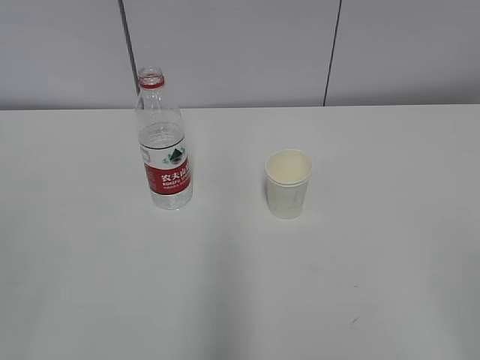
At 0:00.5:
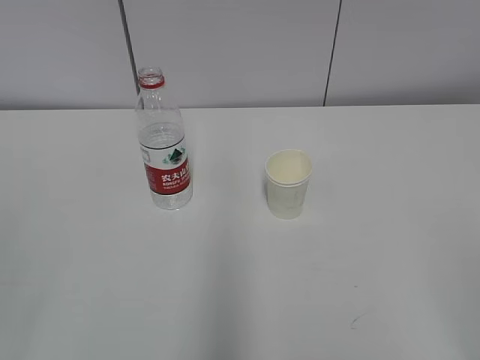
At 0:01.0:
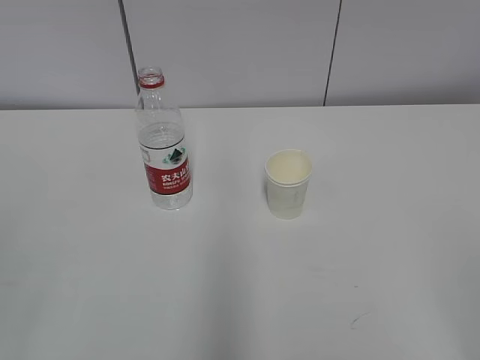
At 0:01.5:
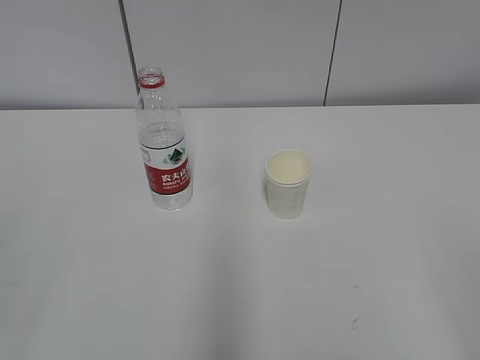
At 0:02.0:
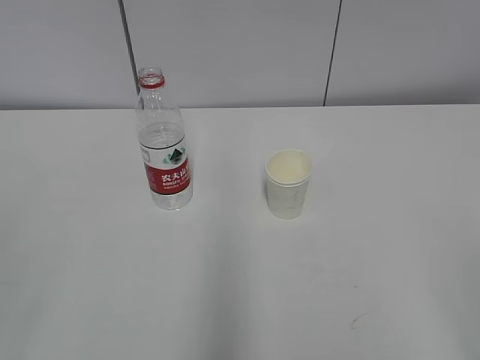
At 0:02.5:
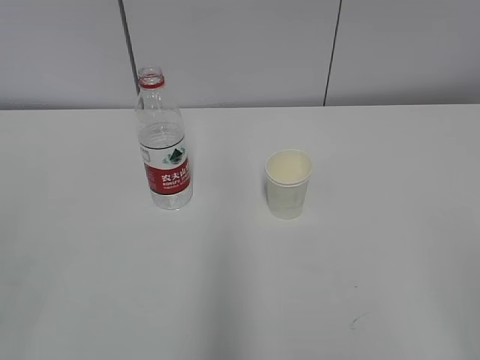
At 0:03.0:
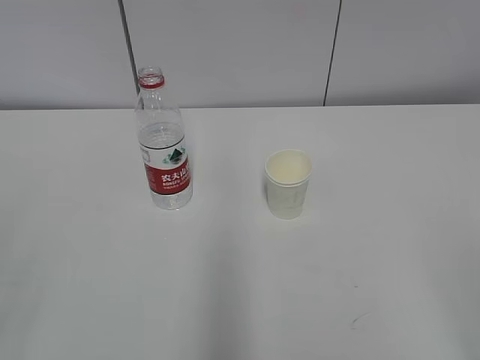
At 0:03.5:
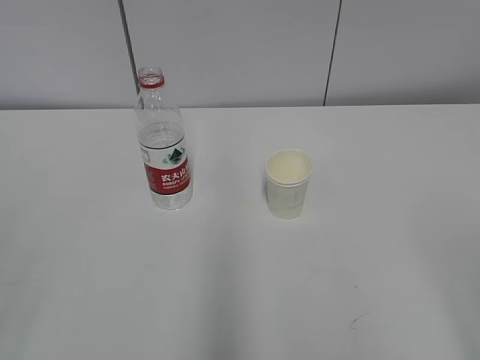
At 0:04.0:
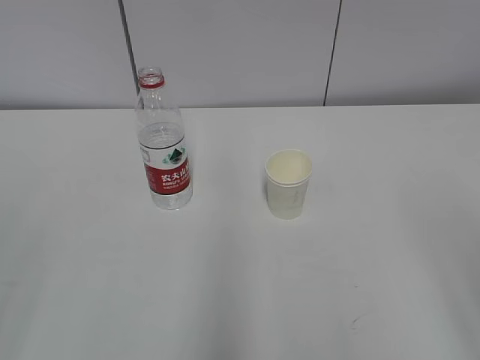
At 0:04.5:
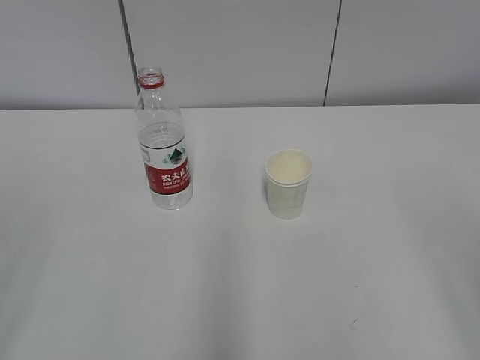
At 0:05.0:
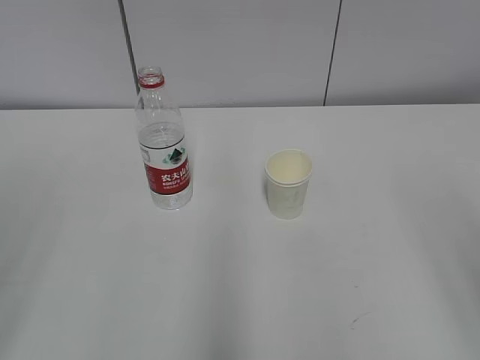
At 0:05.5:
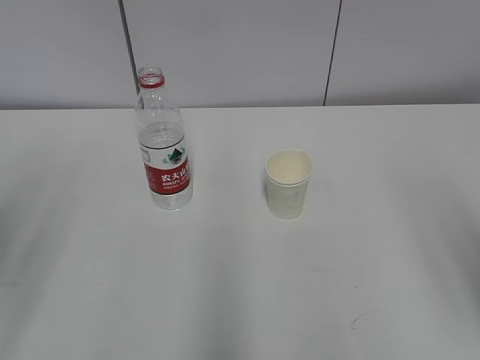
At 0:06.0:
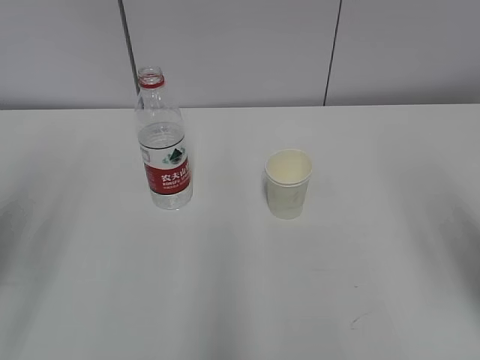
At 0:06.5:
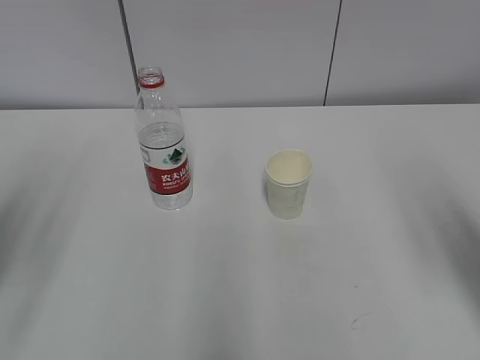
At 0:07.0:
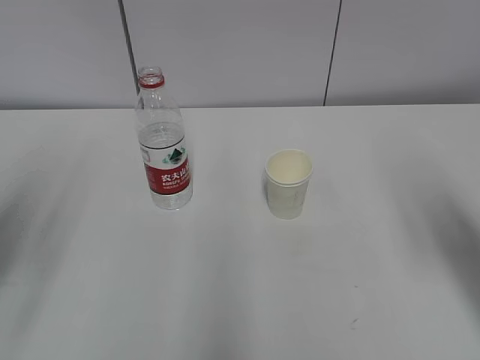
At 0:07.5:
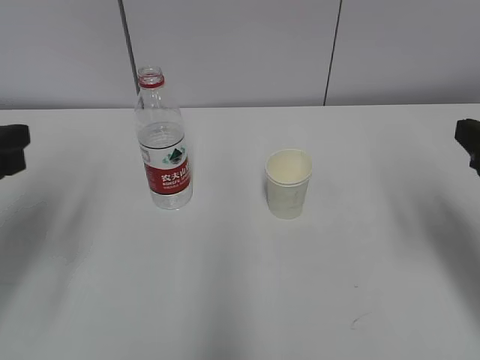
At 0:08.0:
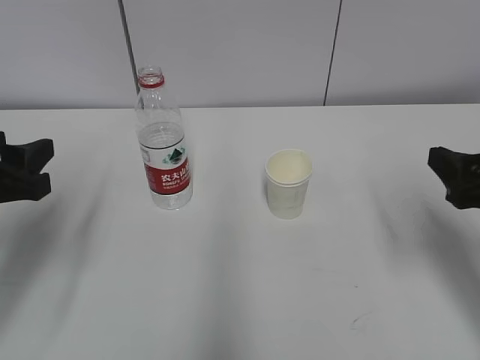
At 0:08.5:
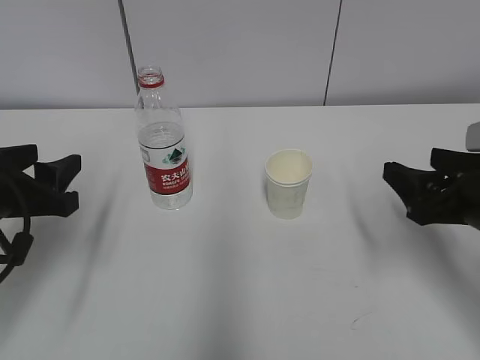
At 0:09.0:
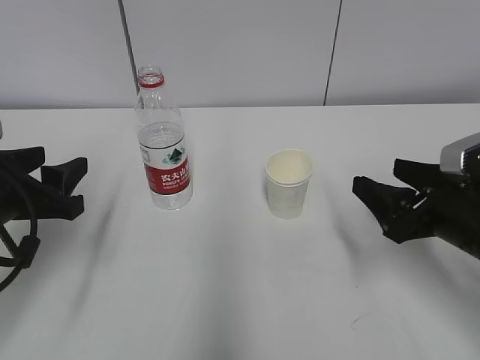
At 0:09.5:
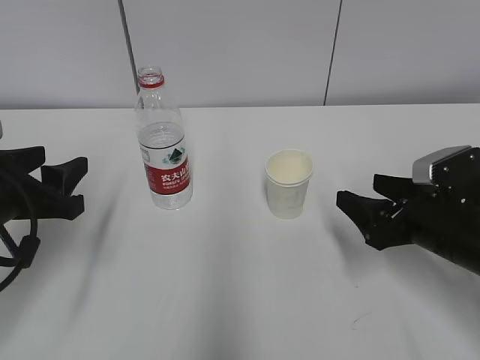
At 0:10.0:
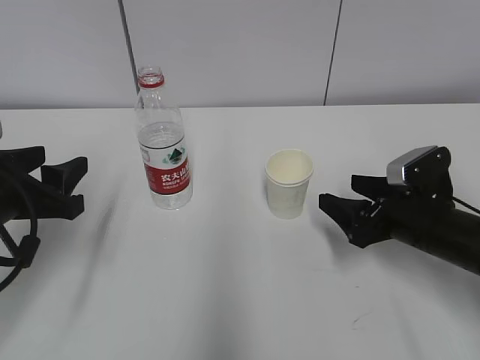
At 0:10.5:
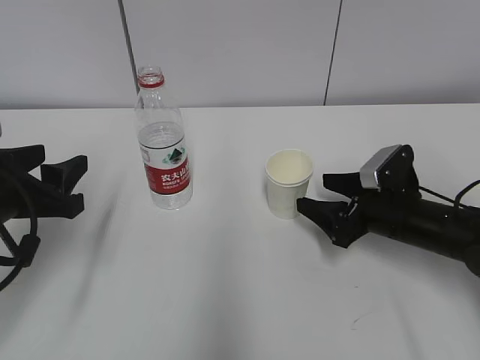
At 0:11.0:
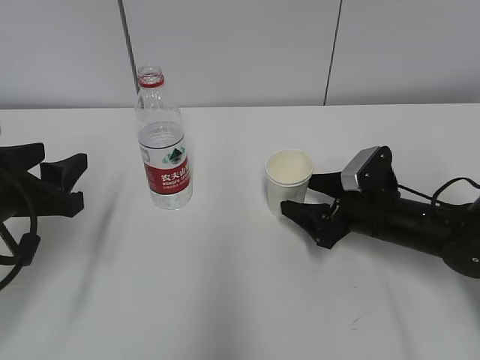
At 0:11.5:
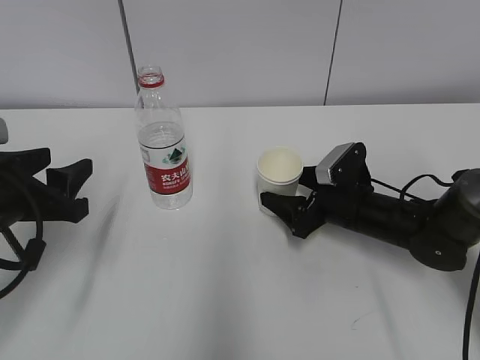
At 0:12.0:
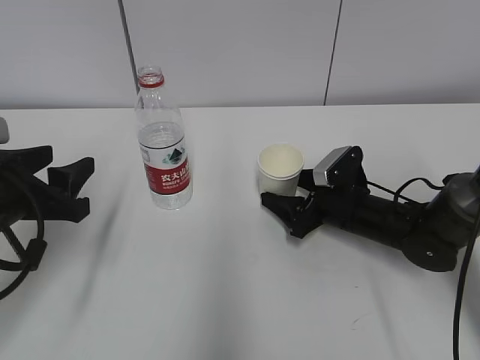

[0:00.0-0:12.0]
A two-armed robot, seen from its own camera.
Step, 0:00.0 to 0:10.0: Grab the paper cup with the right hand.
0:04.0 to 0:06.0: The left gripper travels forward by approximately 15 cm.
0:06.0 to 0:08.0: The two grippers go approximately 10 cm downward and forward.
0:08.0 to 0:10.0: The right gripper moves downward and forward, some 15 cm.
0:10.0 to 0:12.0: The right gripper goes approximately 10 cm forward and to the left.

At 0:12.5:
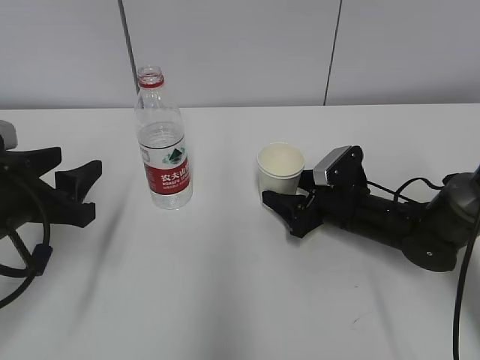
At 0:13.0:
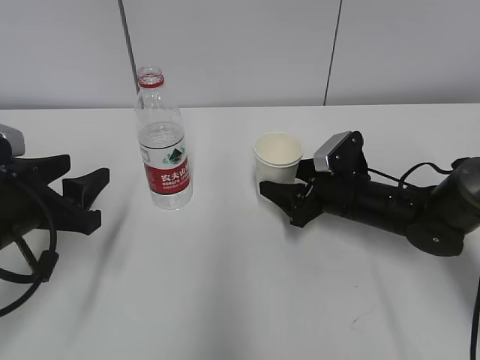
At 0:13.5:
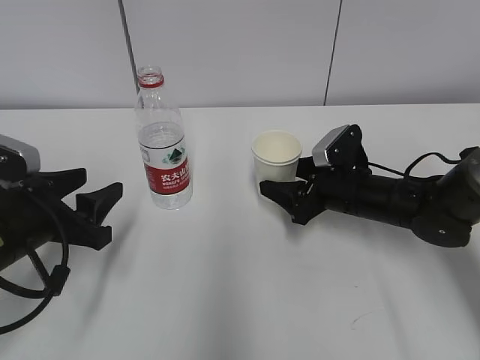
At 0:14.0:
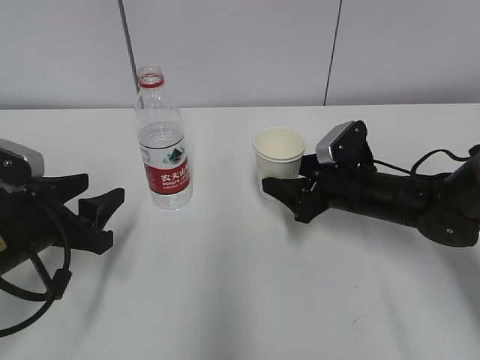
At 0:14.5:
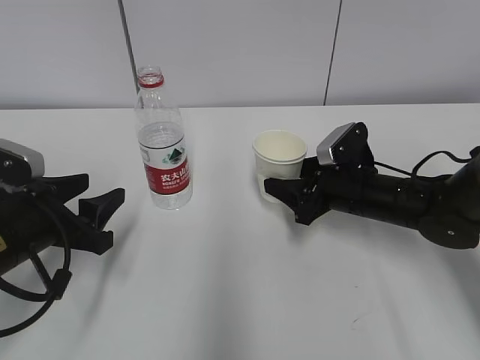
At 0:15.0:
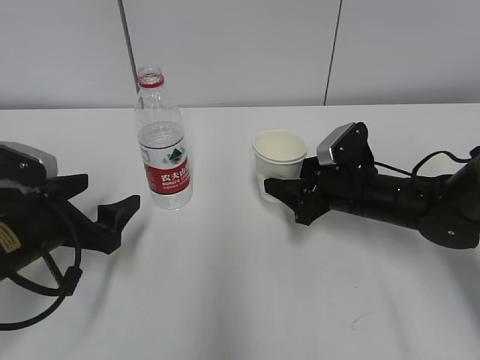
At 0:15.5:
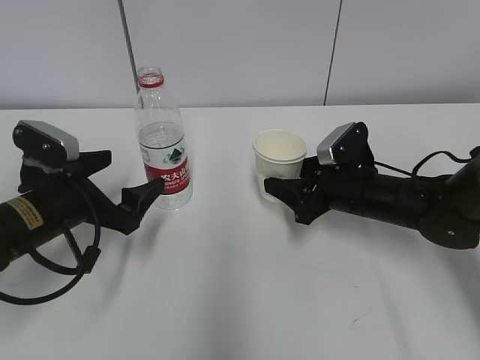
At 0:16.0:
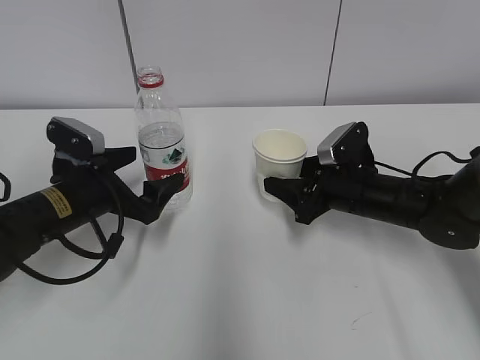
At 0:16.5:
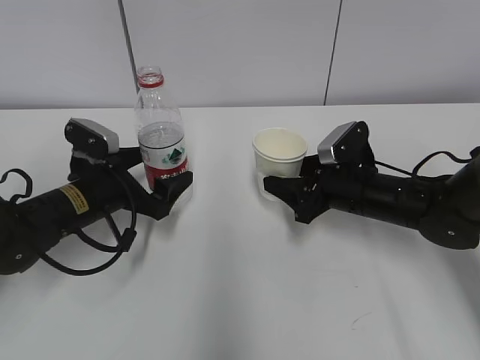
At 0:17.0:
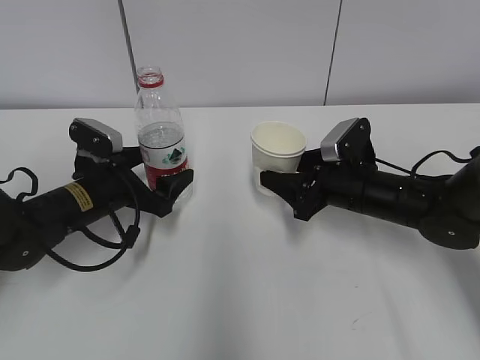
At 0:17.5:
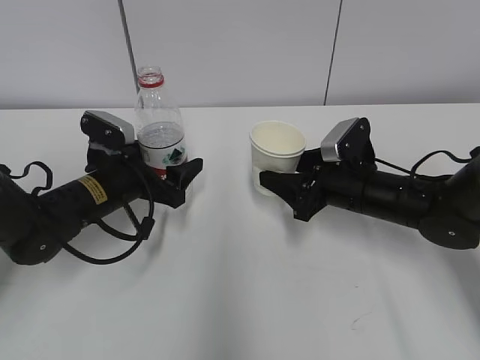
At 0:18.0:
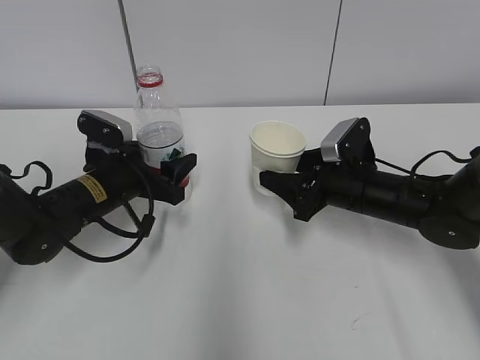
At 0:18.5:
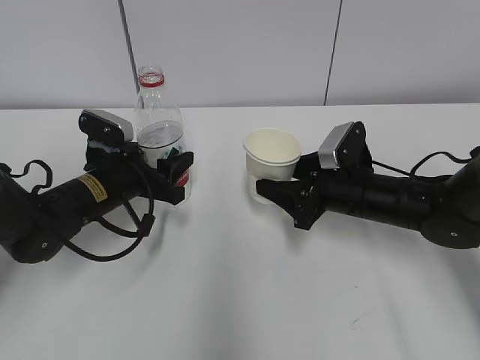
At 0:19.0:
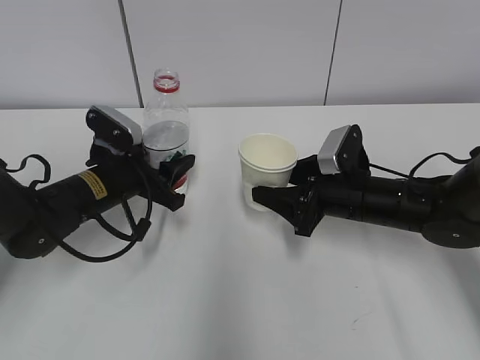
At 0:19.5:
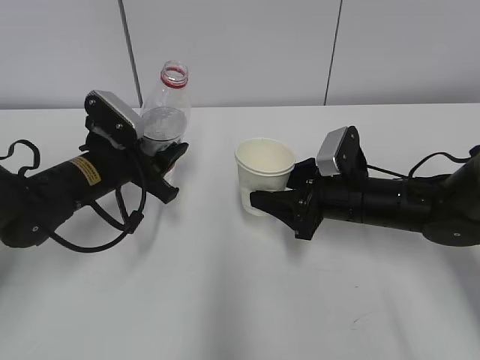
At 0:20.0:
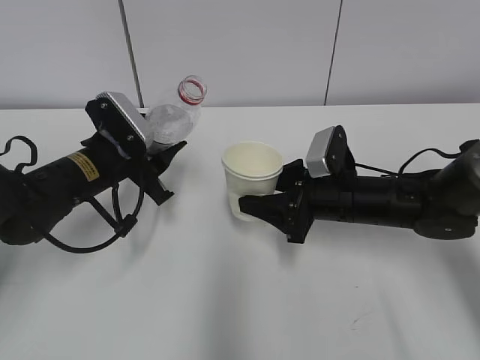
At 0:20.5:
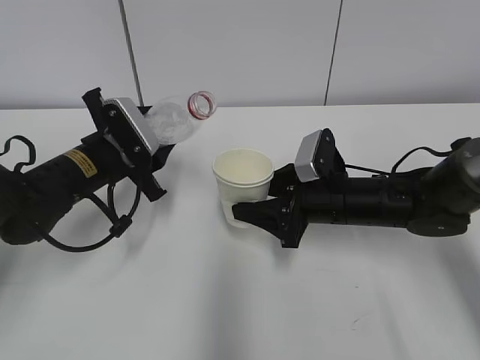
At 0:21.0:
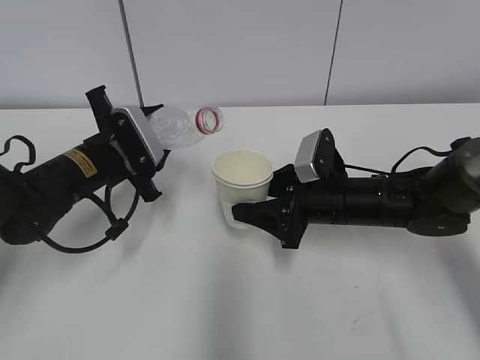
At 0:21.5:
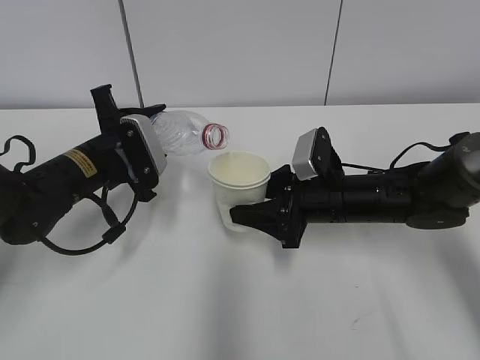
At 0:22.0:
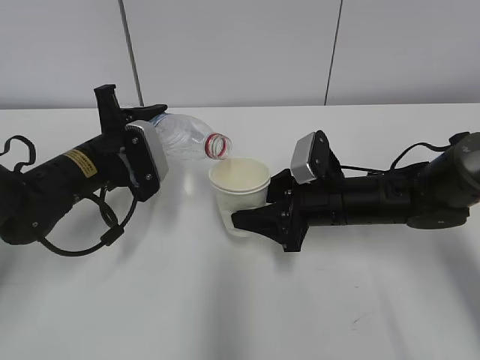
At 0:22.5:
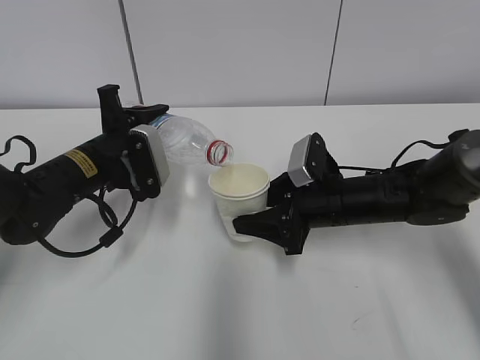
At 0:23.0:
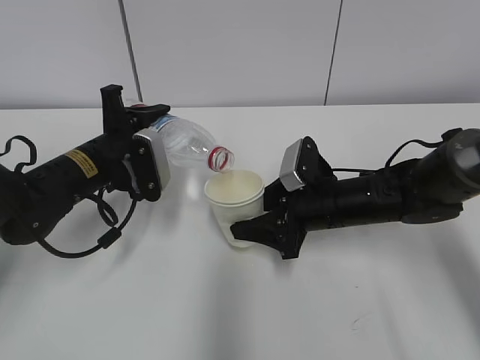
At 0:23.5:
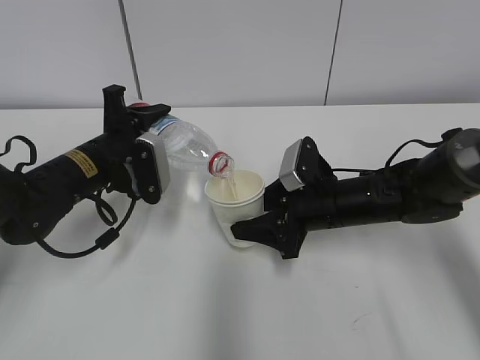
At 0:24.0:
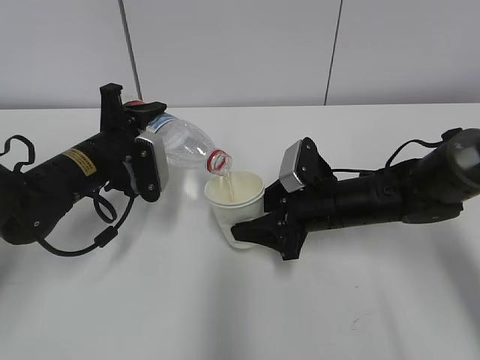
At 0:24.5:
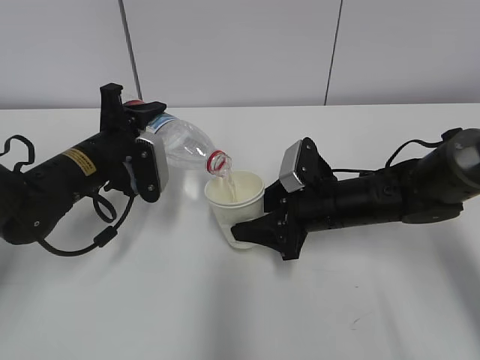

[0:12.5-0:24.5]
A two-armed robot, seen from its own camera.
Step, 0:12.5 to 0:15.5: Grab the water bottle with the left hand.
Step, 0:16.0 to 0:19.0: Lift the paper cup with the right hand.
Step, 0:19.5 to 0:23.5: Fill water with the right hand.
Step, 0:19.5 to 0:23.5: Pour water with the left hand.
0:12.5 to 0:14.5: The right gripper closes.
0:14.5 to 0:16.5: The left gripper moves forward, roughly 10 cm, and opens up.
0:16.5 to 0:18.5: The left gripper closes.
0:22.5 to 0:24.5: The grippers move only a little.

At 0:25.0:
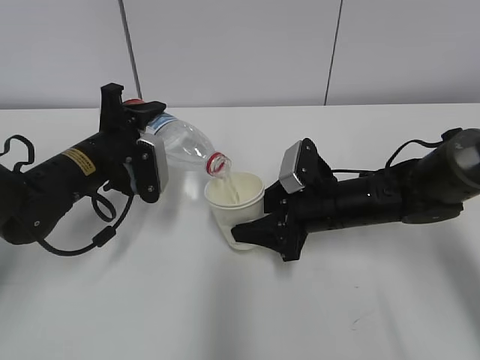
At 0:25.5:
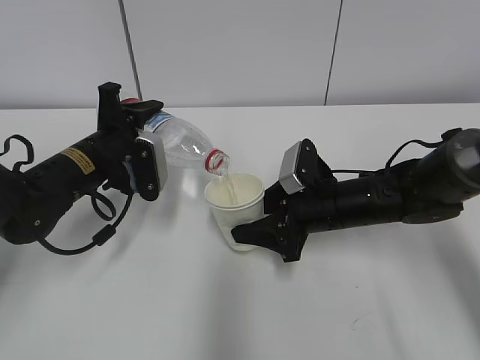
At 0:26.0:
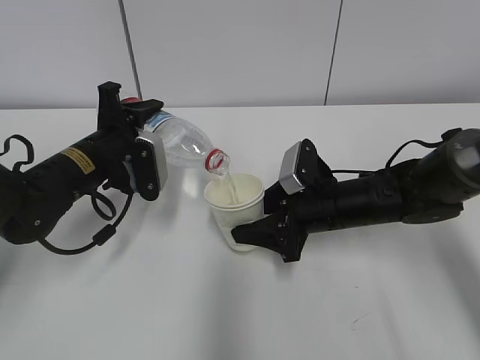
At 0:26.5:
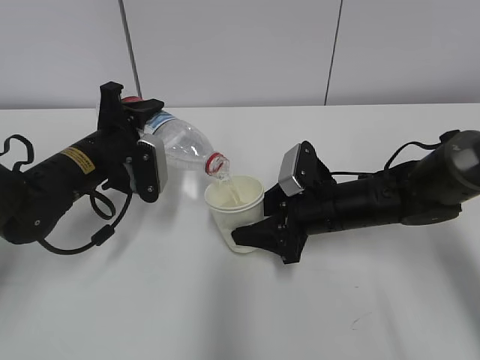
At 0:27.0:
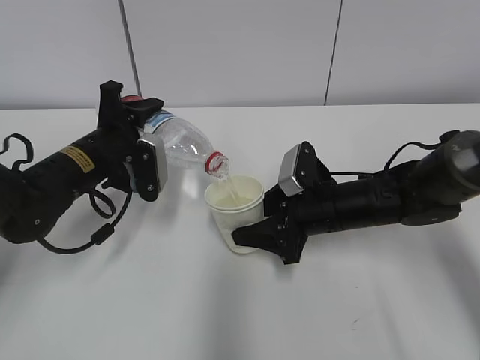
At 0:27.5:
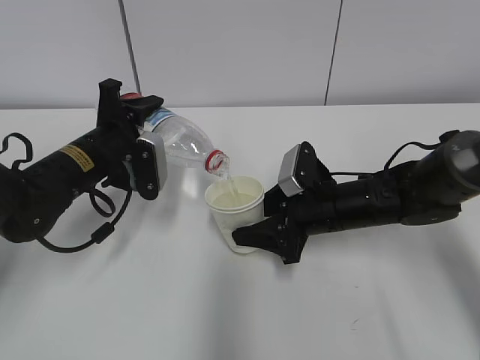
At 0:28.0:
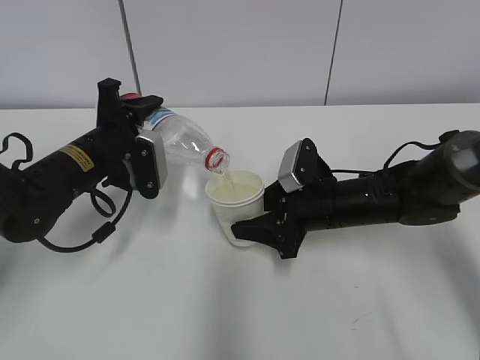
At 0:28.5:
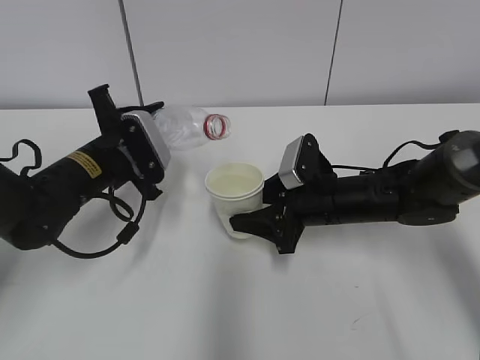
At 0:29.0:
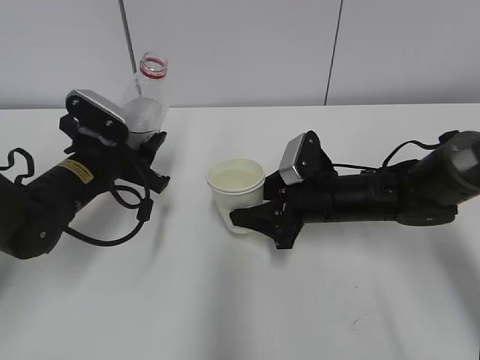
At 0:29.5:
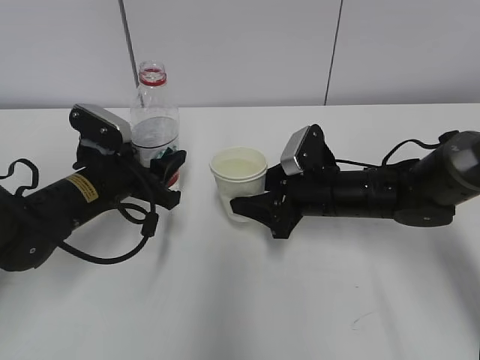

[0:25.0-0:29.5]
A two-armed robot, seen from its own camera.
Step, 0:25.0 to 0:26.0: Place the paper cup with the right hand.
Step, 0:25.0 to 0:26.0: Place the water bottle with the left hand.
0:25.0 to 0:27.0: Both grippers stay about where they are.
